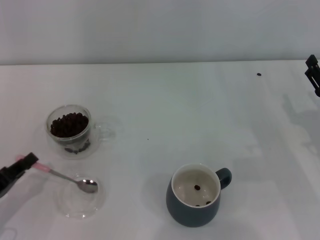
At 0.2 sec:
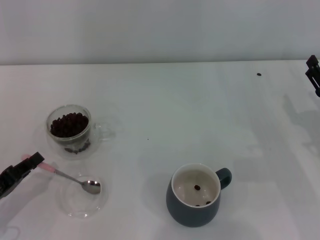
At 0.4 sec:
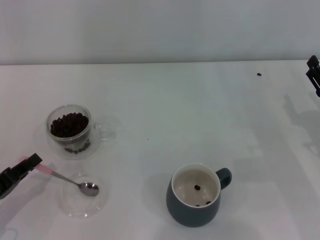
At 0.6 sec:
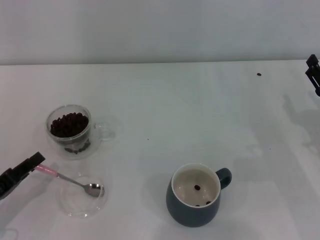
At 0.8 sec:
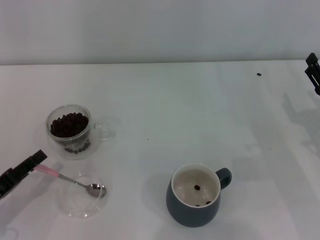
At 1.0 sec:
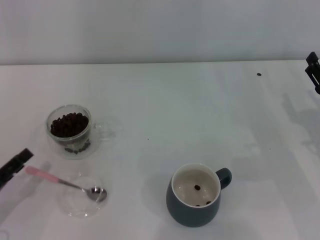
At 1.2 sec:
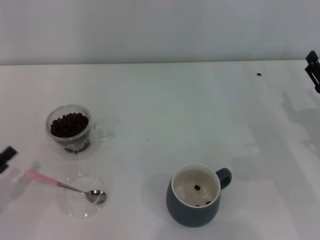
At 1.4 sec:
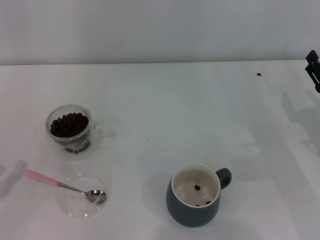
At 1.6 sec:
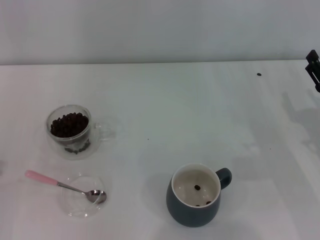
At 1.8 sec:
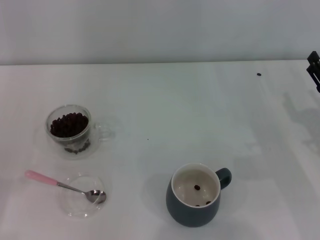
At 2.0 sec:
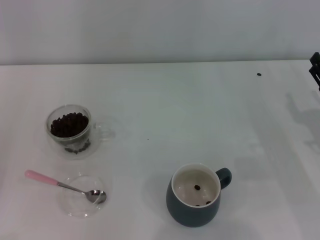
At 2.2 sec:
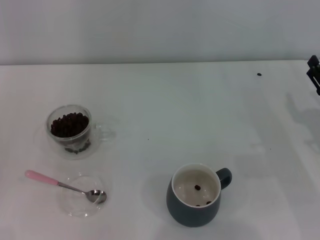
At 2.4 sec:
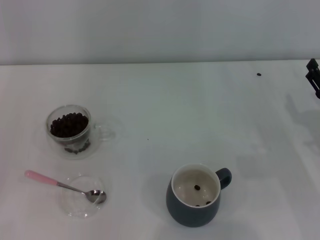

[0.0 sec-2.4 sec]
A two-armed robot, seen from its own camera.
Task of the whole recording: Use a pink spoon to take out the coffee beans from the glass and pour them into the gray cup.
0.0 sec to 1.2 sec: The left gripper opens its fingers.
